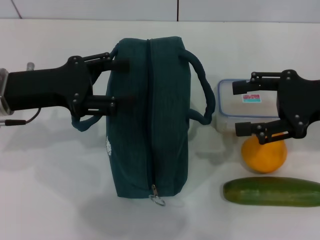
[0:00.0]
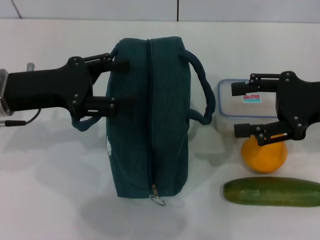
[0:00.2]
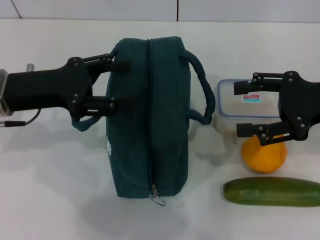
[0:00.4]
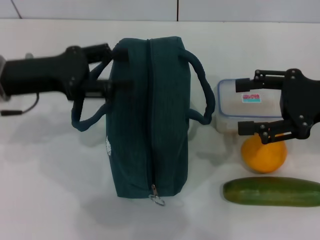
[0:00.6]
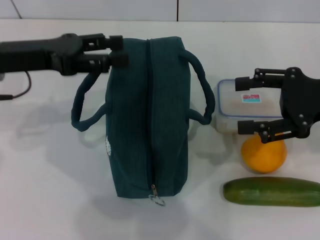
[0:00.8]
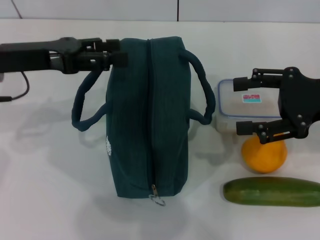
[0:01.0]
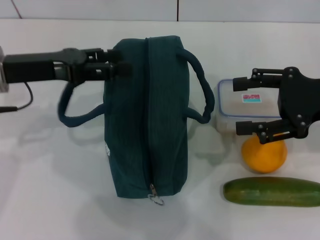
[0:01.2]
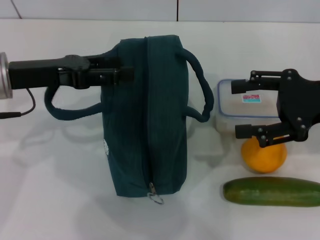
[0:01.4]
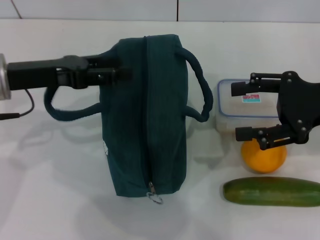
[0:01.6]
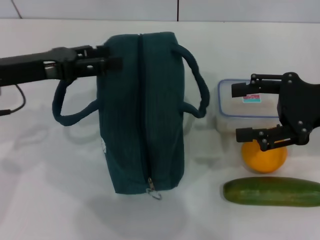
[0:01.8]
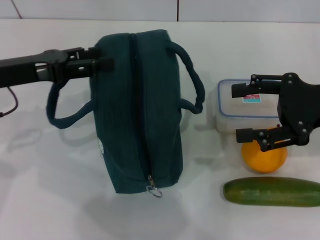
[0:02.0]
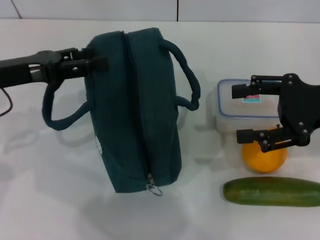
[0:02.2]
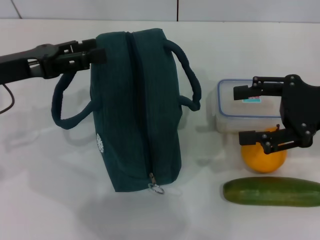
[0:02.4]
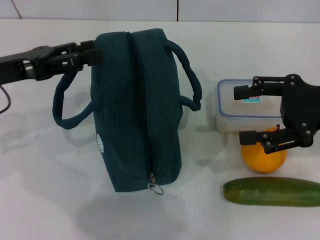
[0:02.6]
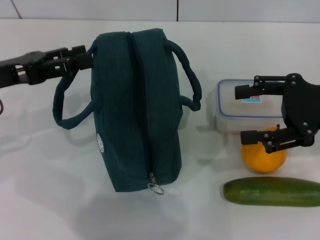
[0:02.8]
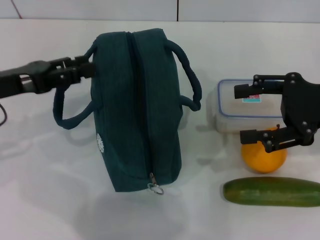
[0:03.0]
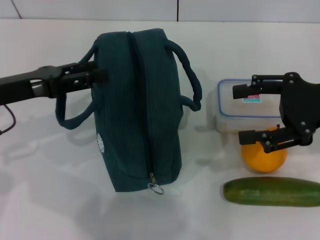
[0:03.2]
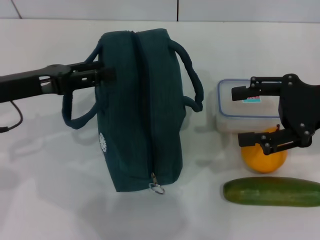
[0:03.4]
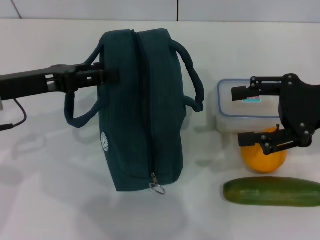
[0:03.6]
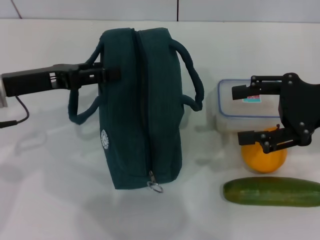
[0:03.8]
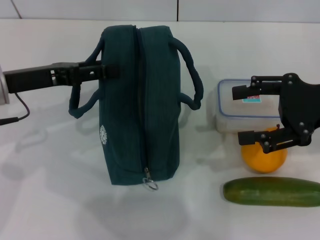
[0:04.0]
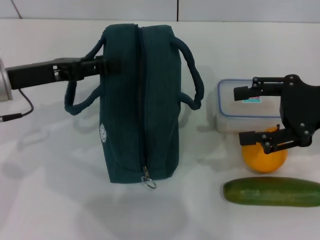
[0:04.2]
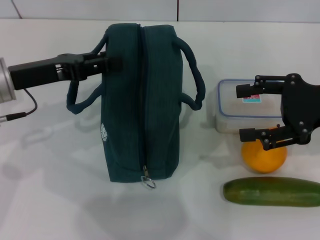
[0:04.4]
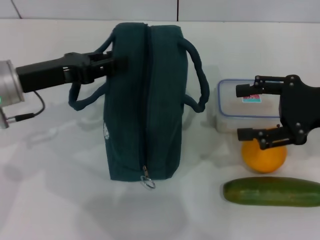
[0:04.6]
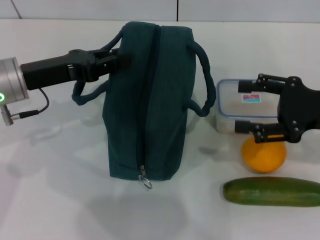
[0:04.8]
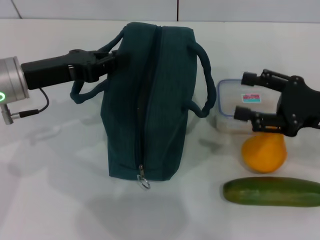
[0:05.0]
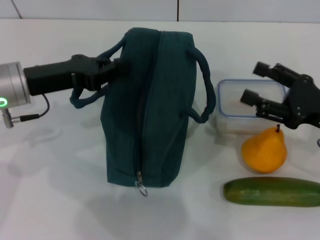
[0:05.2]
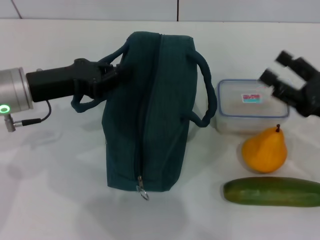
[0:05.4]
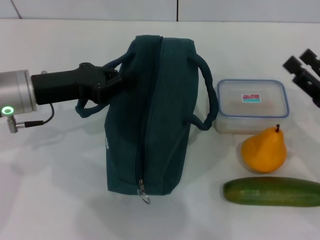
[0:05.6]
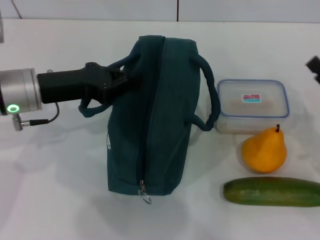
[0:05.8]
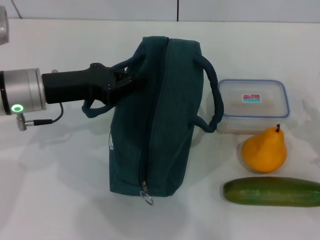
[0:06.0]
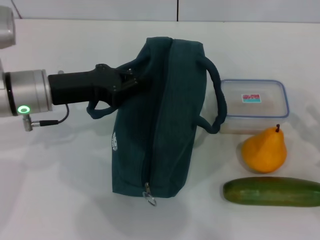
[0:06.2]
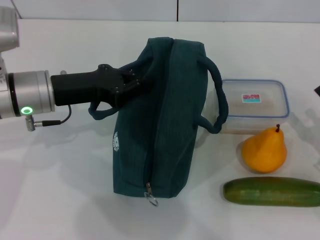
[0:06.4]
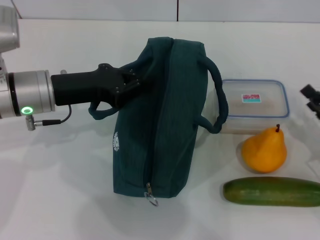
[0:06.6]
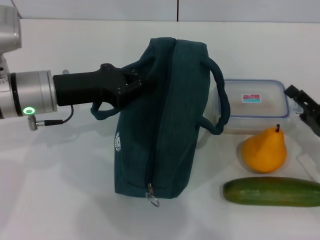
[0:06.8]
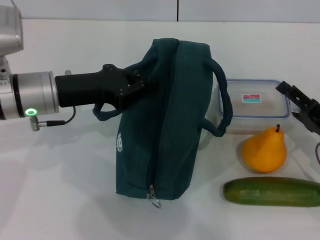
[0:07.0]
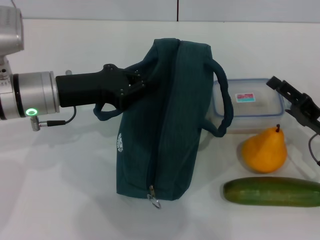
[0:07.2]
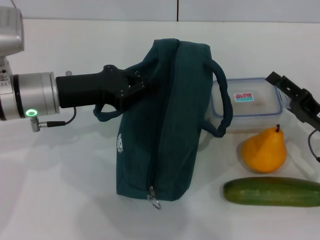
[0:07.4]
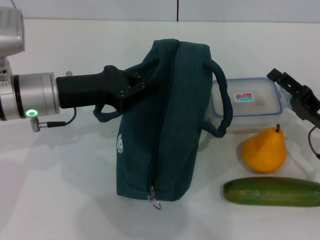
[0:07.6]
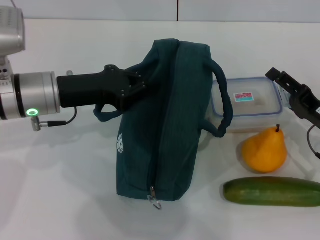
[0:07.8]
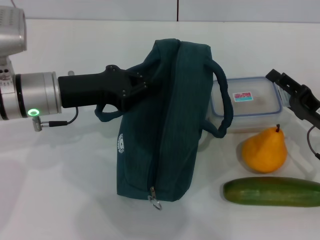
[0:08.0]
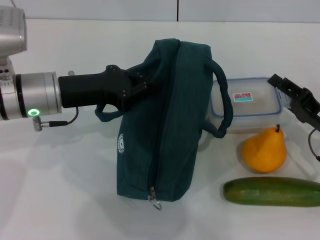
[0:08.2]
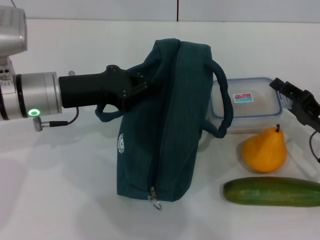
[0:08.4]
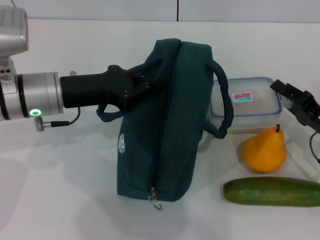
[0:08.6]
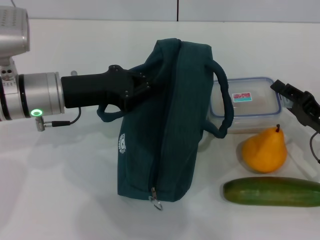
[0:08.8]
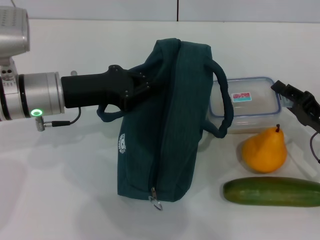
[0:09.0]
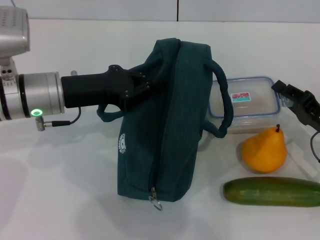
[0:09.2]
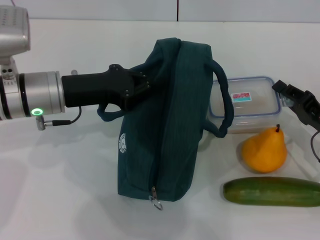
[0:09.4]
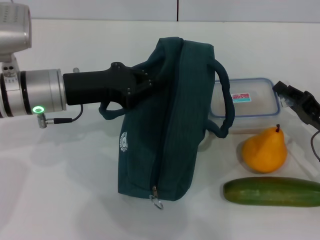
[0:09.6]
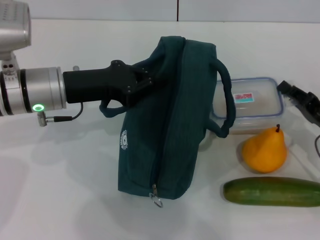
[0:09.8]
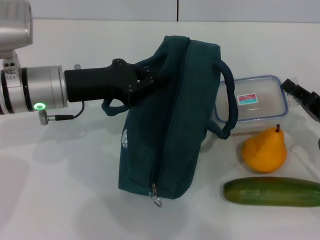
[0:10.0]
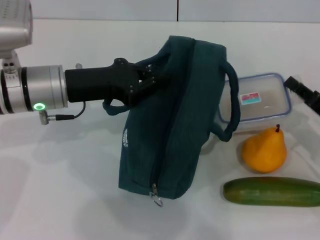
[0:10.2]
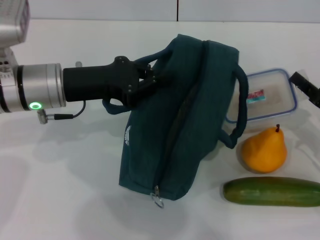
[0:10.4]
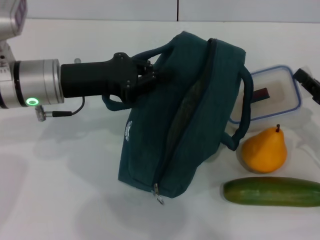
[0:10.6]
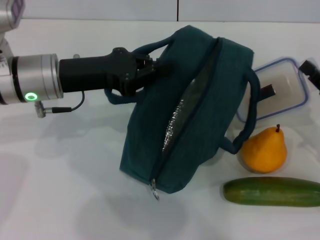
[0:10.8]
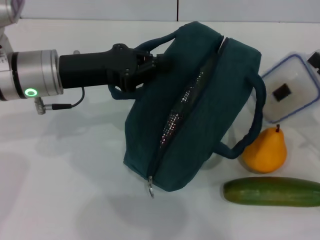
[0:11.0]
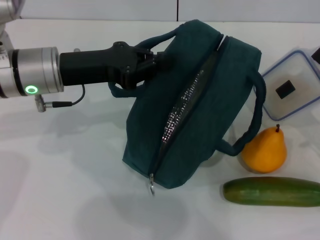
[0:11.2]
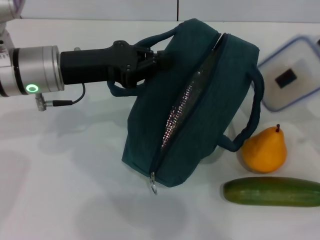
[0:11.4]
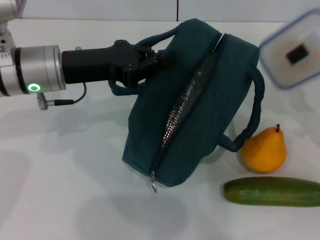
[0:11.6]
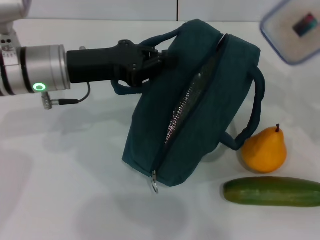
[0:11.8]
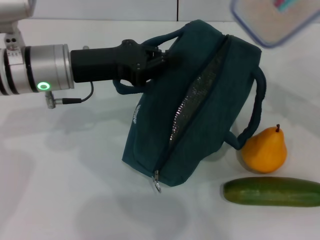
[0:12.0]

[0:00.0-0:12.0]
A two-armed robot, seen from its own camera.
Step, 0:00.0 to 0:05.2: Hold the lunch bag with your left hand.
Step, 0:05.6 to 0:09.4: Pick up the lunch box with your right hand.
0:01.6 to 0:03.0: The left gripper moves about 5 cm.
0:03.0 to 0:04.4: There are only small adjustments of the grippers.
0:04.4 to 0:06.0: The right gripper heads downward and backward, covering approximately 15 cm. The left gripper closes its fingers.
0:06.0 to 0:07.6: The right gripper shifts approximately 5 cm forward.
0:07.6 to 0:09.0: The right gripper closes up.
0:10.4 to 0:12.0: The right gripper goes roughly 15 cm upward.

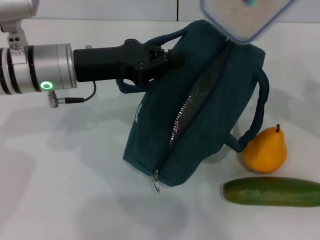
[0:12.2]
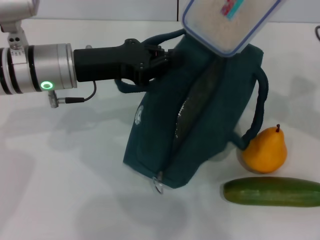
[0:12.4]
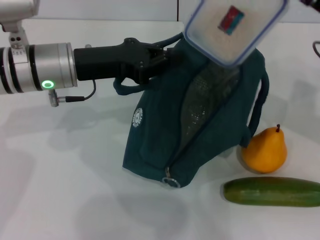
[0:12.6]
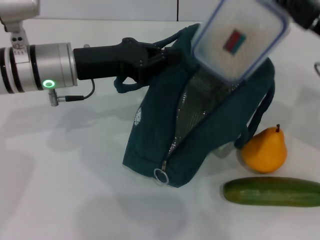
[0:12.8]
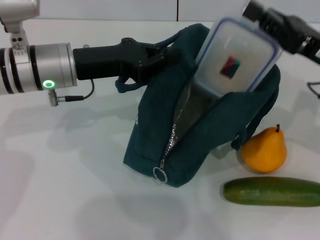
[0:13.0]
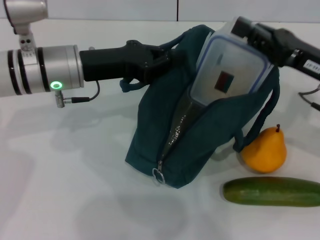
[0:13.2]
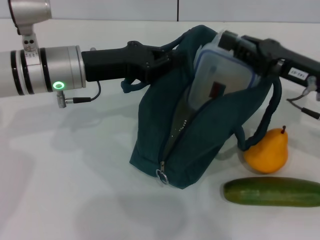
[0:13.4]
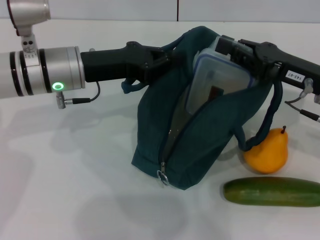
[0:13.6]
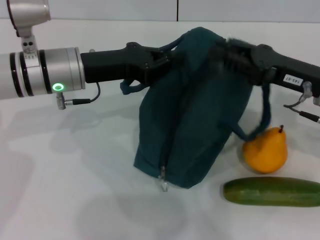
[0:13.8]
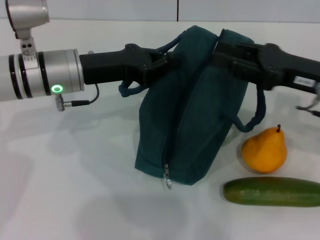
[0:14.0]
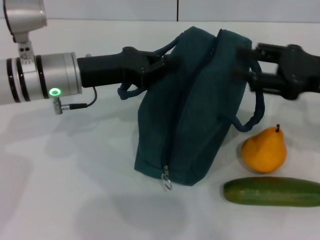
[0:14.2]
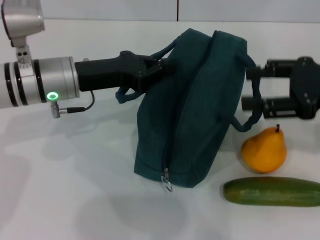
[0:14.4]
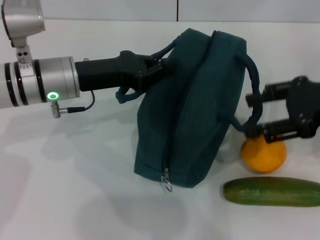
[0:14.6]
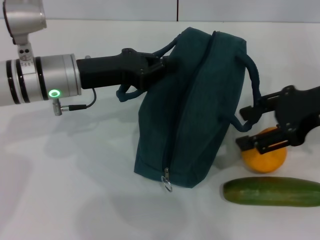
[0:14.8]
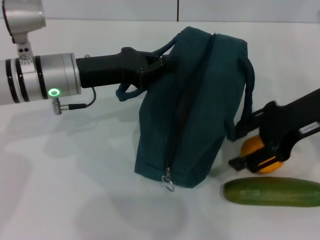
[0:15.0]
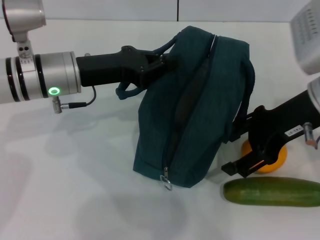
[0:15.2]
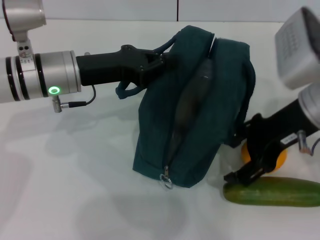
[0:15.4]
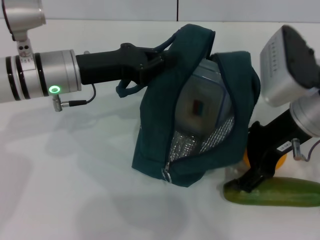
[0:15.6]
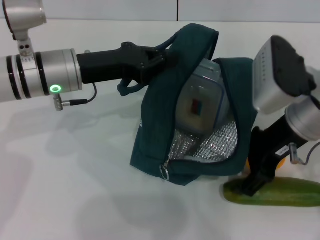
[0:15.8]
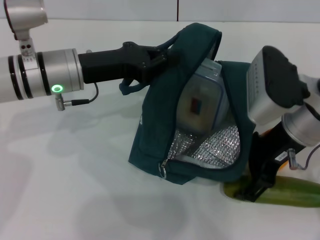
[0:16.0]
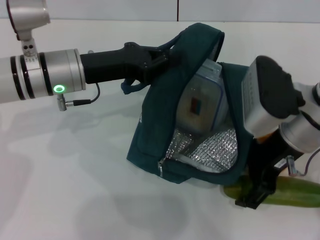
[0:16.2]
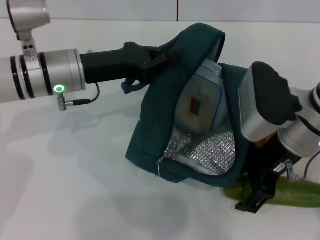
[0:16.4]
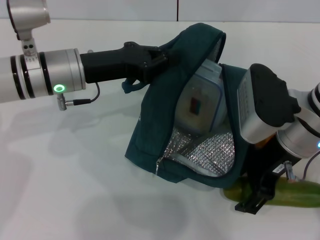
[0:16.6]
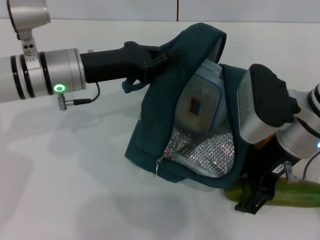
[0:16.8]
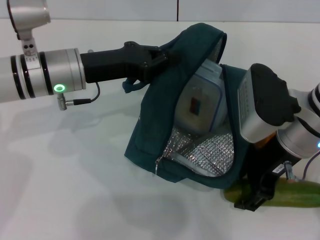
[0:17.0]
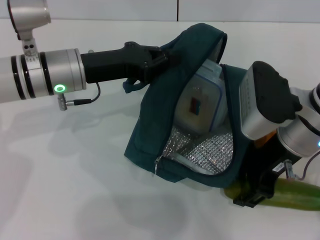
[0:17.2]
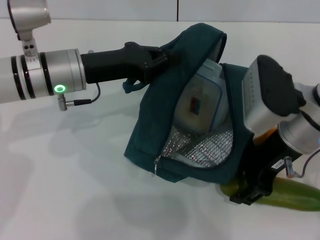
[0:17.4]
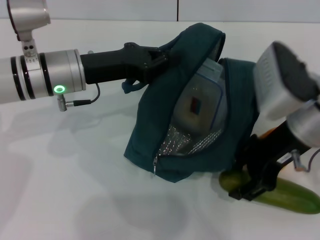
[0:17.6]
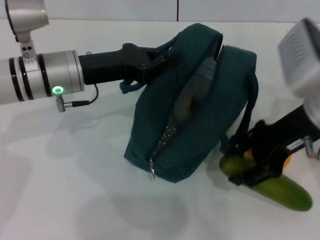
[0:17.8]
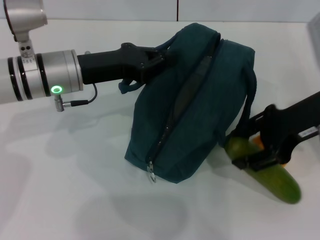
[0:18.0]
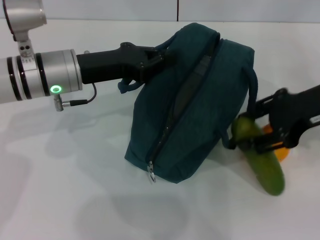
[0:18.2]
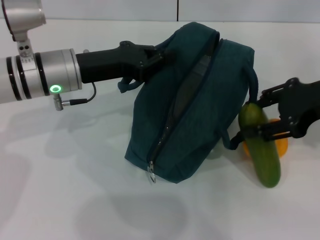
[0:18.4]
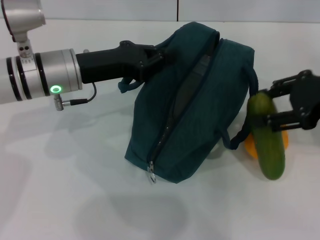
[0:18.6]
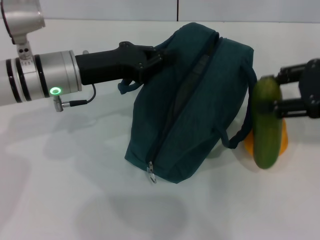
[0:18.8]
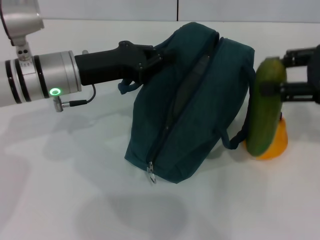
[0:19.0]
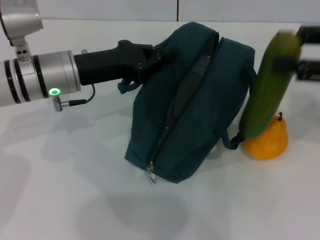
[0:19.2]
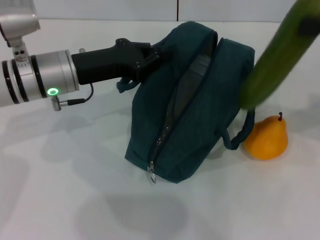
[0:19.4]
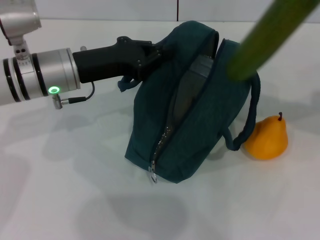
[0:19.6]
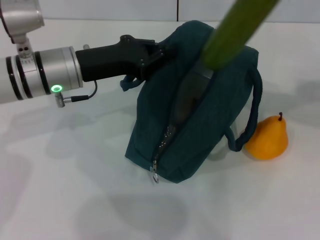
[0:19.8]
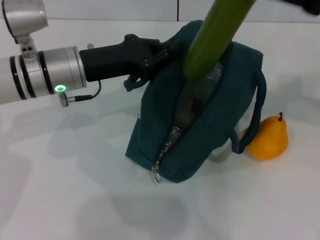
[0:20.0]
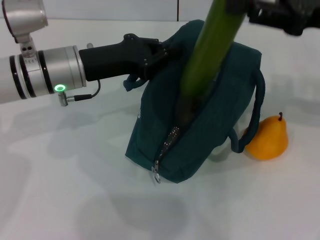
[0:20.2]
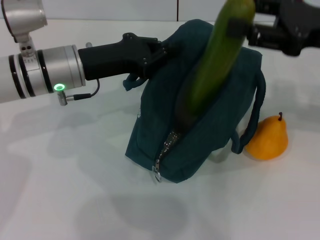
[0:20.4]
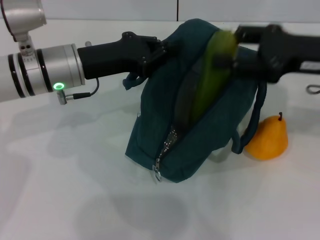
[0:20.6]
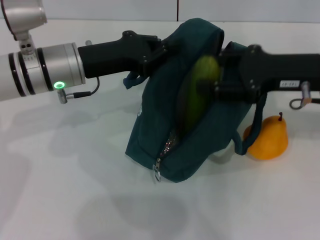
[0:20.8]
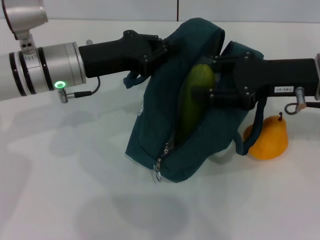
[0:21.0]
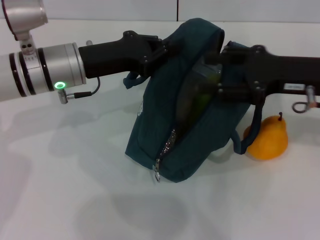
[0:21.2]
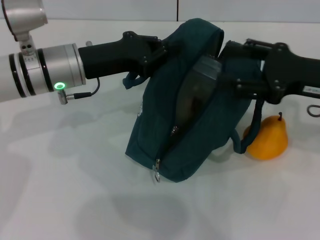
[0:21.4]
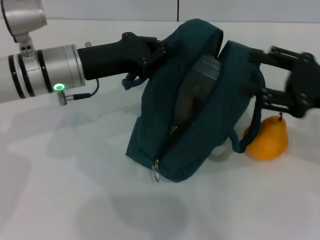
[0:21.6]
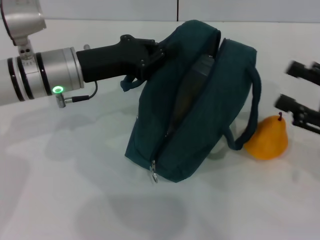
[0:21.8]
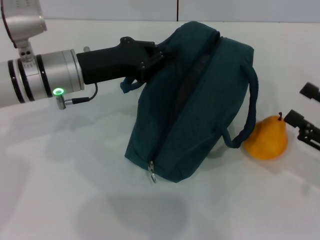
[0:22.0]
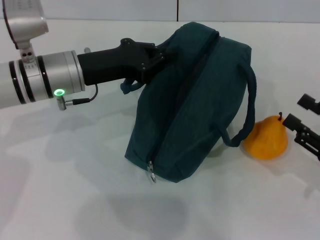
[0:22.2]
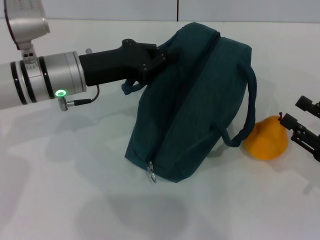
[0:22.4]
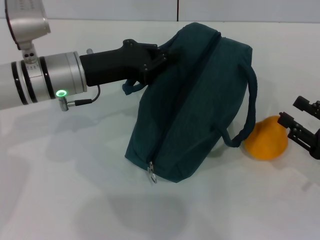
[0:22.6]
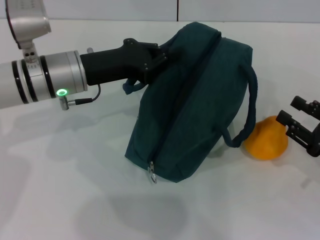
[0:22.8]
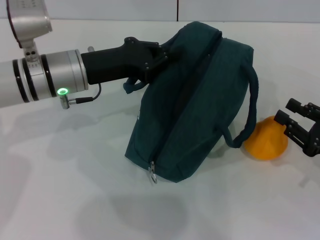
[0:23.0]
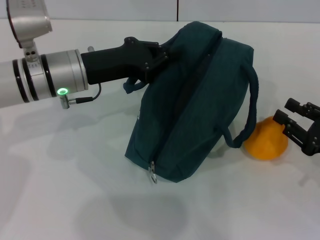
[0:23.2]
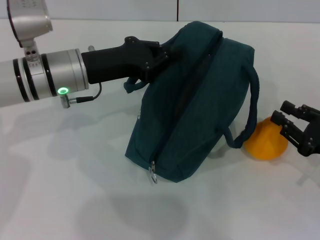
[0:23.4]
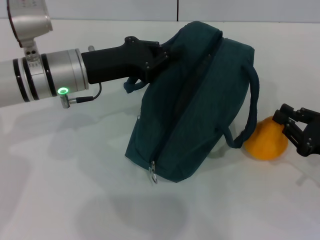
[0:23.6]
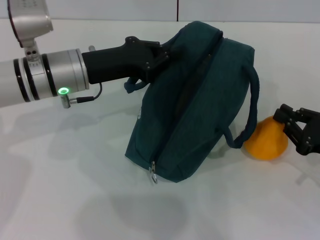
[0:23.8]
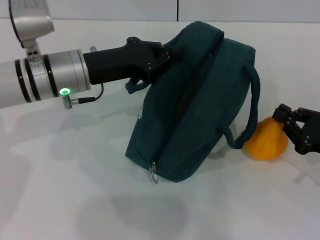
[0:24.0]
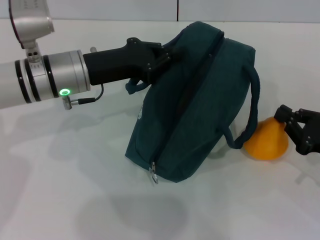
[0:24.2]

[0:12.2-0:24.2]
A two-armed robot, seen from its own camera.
Step, 0:14.2 to 0:17.2: Pick up the cucumber with your right hand.
Step, 0:17.4 to 0:21.2: Put the cucumber into the lunch bag with your right hand.
Step, 0:21.4 to 0:24.0: Grab the pear with your right hand.
0:12.2 to 0:13.8: The right gripper travels downward by approximately 5 cm.
0:13.8 to 0:15.2: The right gripper shifts about 5 cm upward, and opens up.
0:15.2 to 0:16.6: The right gripper is displaced downward by roughly 5 cm.
0:16.6 to 0:18.2: The right gripper shifts some 10 cm to the right and upward.
0:18.2 to 0:19.8: The right gripper ends up approximately 5 cm from where it was.
0:19.8 to 0:21.2: The right gripper travels downward and to the left by some 10 cm.
0:21.2 to 0:22.6: The right gripper is displaced downward, backward and to the right by roughly 20 cm.
0:22.6 to 0:24.2: The right gripper closes its fingers.
